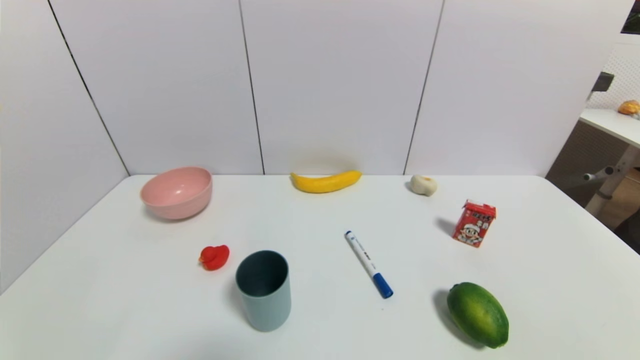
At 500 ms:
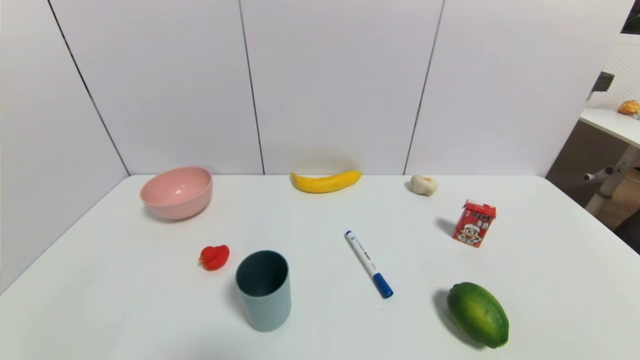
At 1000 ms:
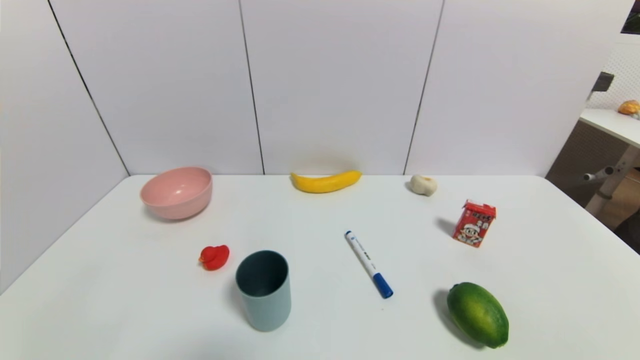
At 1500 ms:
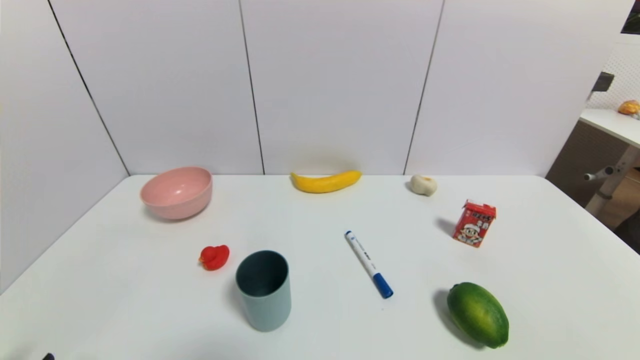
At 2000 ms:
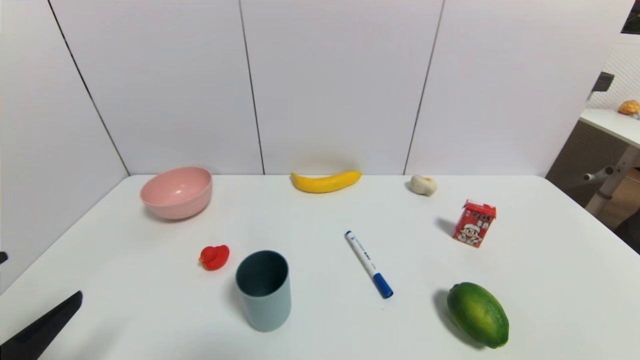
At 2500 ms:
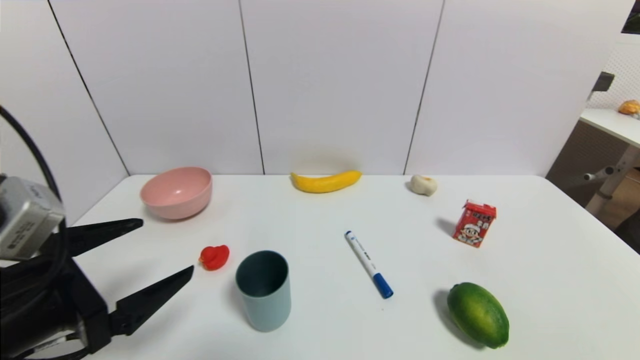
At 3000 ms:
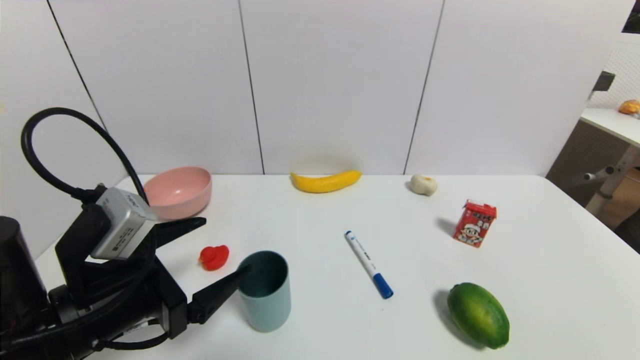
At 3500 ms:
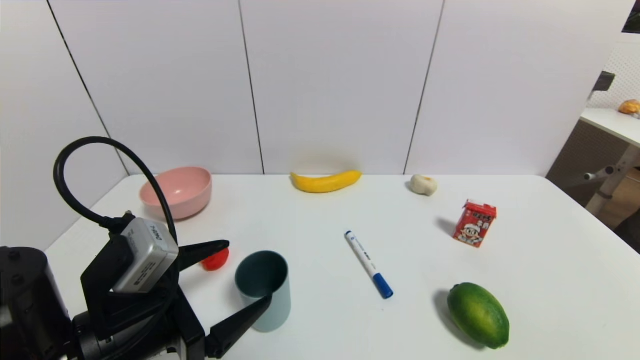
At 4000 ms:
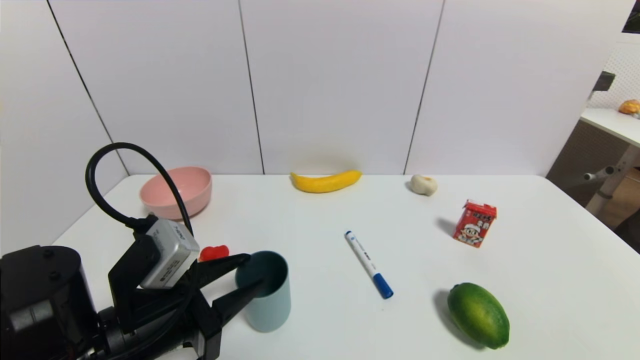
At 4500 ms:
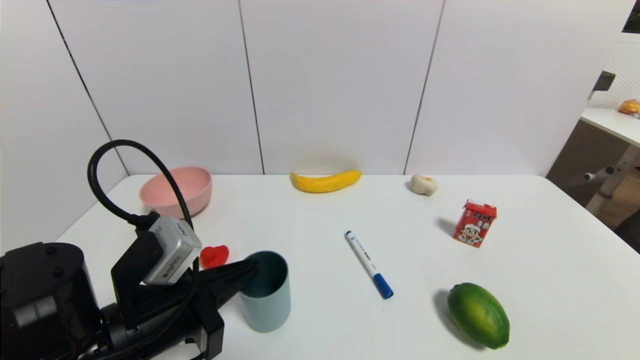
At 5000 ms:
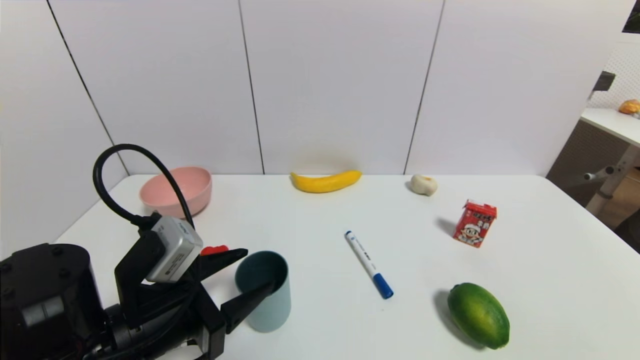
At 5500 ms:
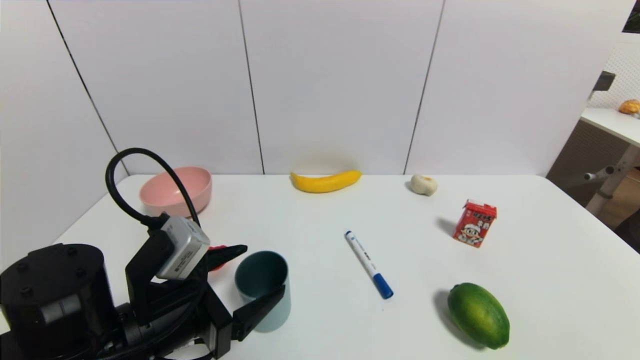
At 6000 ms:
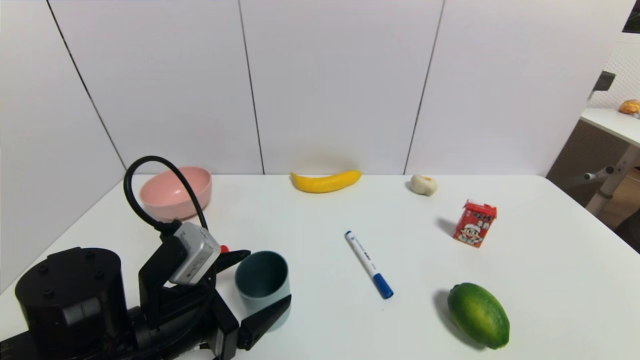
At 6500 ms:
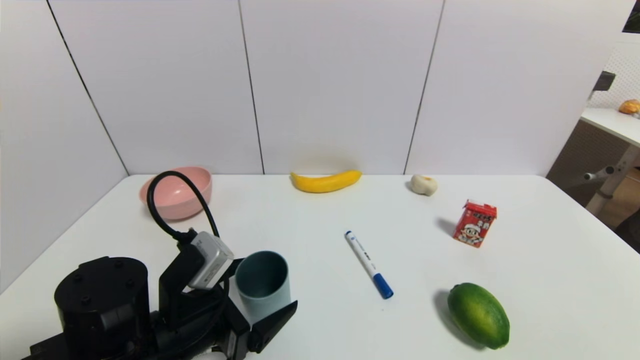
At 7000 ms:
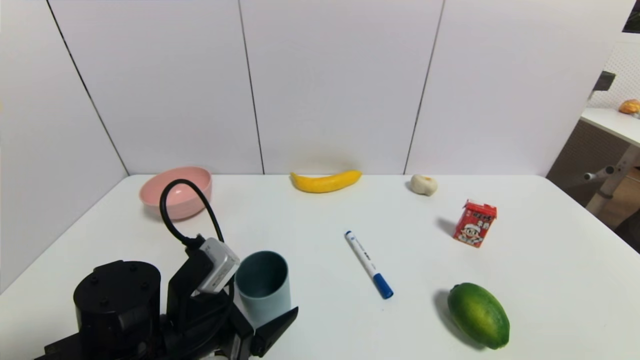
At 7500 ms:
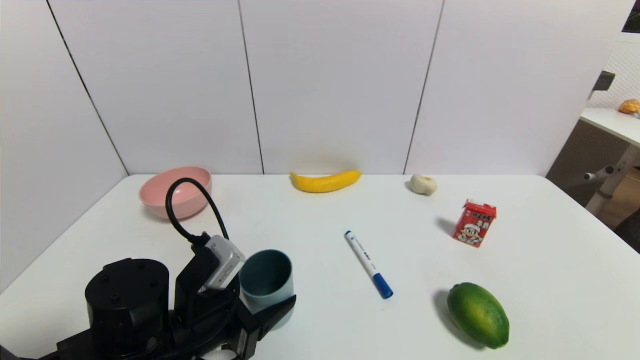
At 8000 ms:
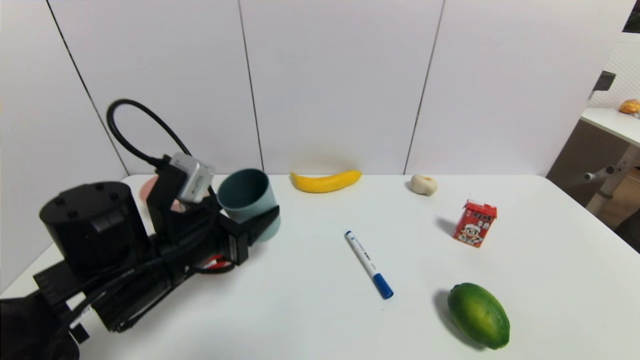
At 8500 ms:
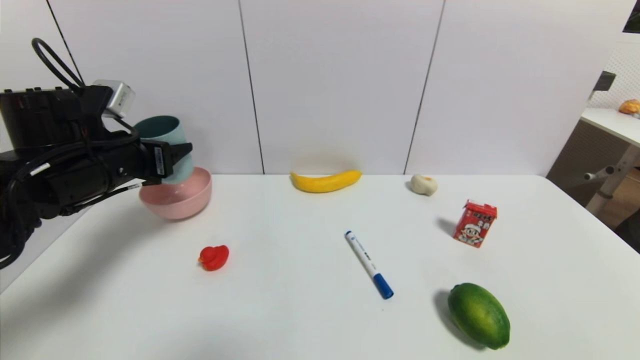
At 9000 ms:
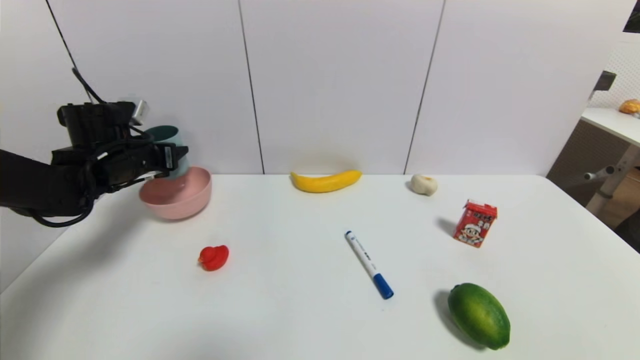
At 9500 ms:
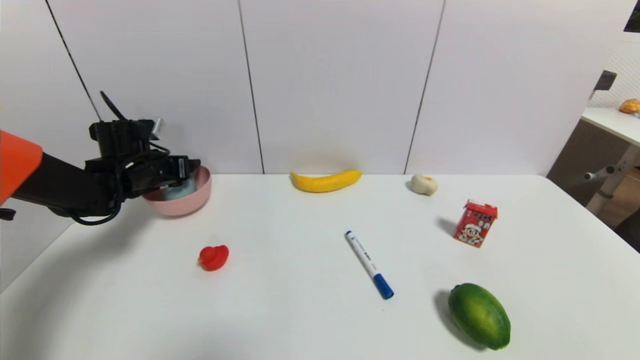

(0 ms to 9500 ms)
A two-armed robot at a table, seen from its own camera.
Task of the whole recording: use a gripper to pick the target object and place on the pink bowl.
Step, 0 ms - 7000 ms: Grasp the blue cup with the left gripper.
0 ms - 2000 ms: The left gripper is displaced upward and forward by some 15 cm.
2000 ms - 4000 ms: The left gripper is displaced to the right, forward and downward by approximately 15 cm, and closes its fingers.
4000 ms - 5500 ms: The left gripper opens up.
5500 ms - 7500 ms: The grippers move only a little.
7500 ms - 9500 ms: The left gripper heads forward and to the left, covering roughly 30 cm.

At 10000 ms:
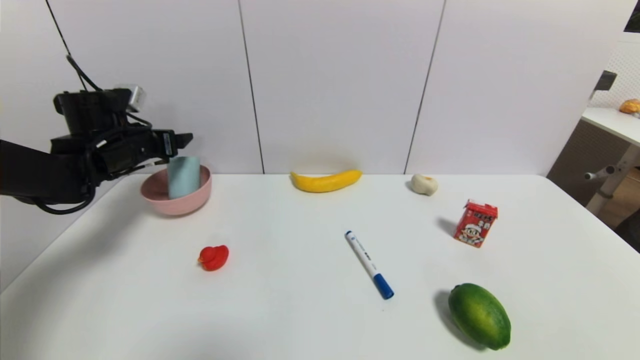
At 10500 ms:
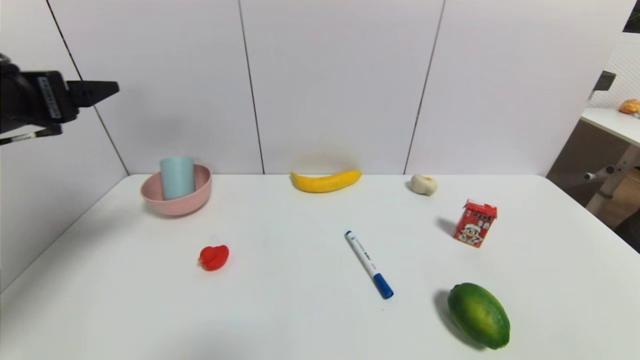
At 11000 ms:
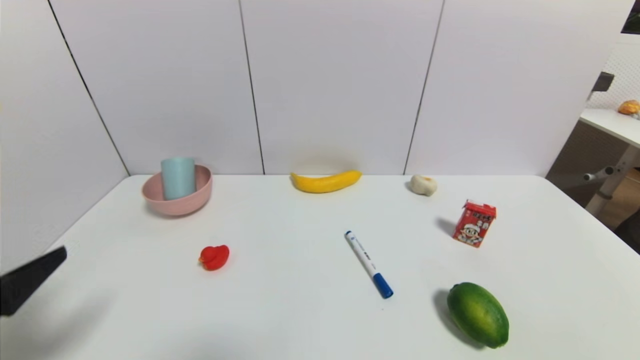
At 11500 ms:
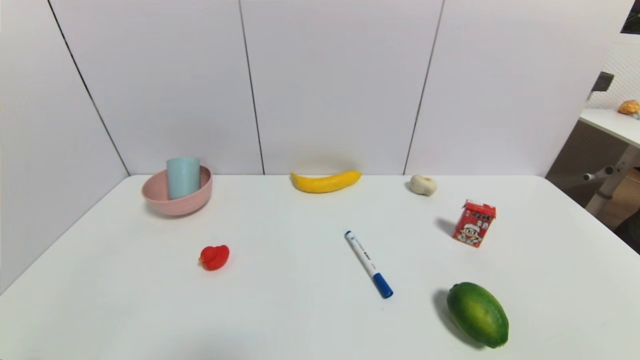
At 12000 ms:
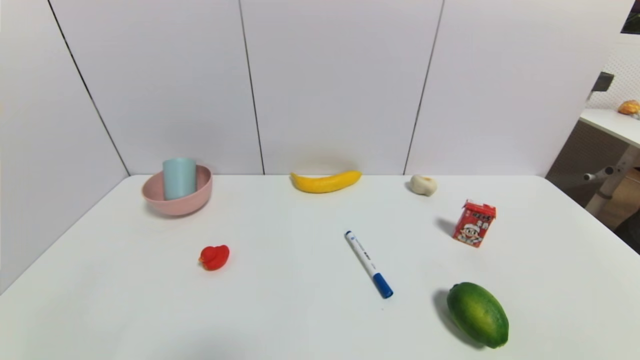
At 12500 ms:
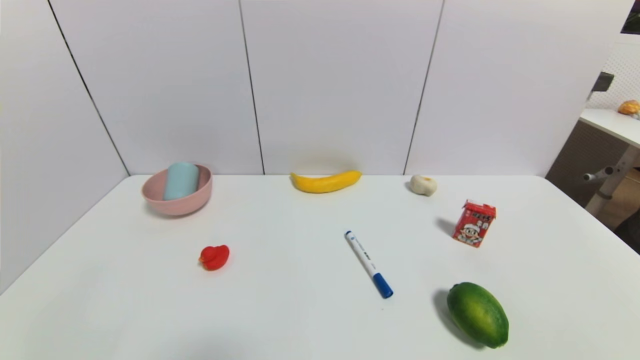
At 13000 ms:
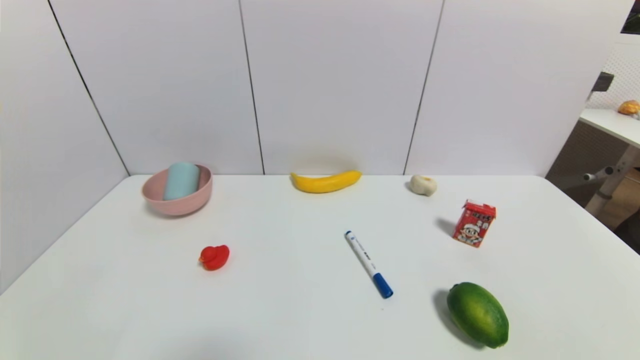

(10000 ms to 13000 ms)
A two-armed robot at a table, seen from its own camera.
Task of the whole recording: use a gripper to pick the target object and place on the pink bowl.
10000 ms - 11500 ms: The left gripper travels backward by approximately 40 cm.
